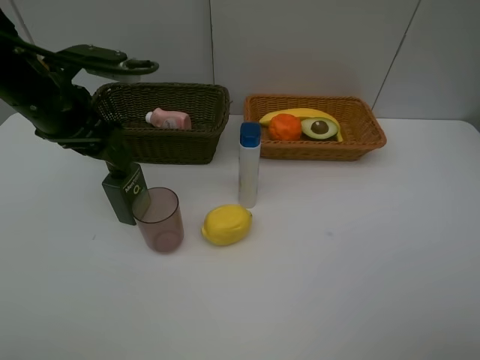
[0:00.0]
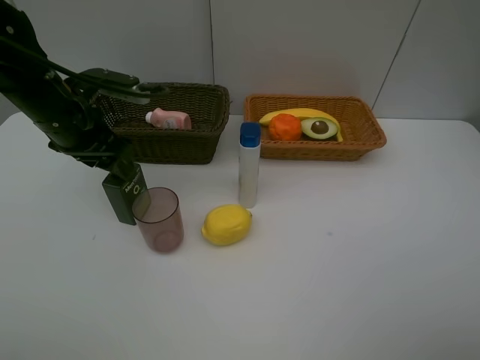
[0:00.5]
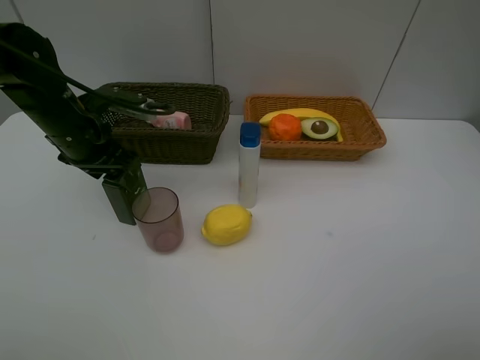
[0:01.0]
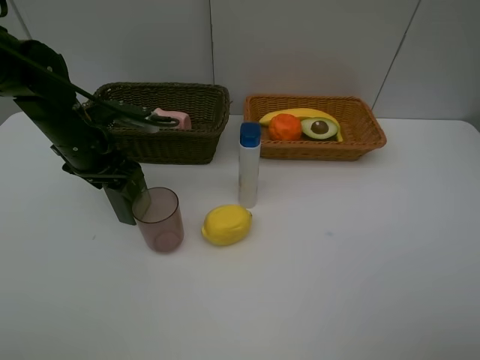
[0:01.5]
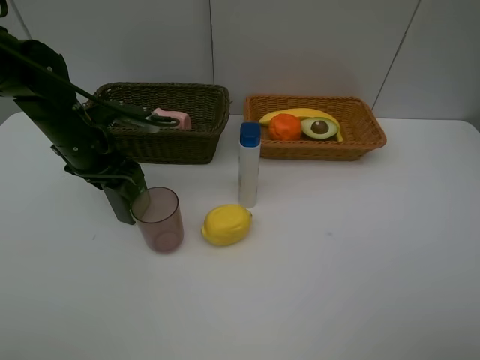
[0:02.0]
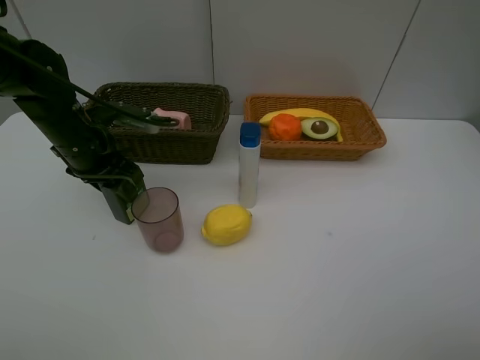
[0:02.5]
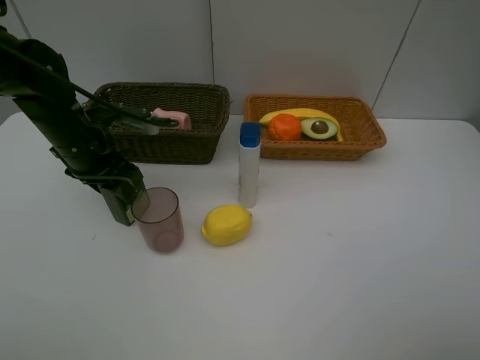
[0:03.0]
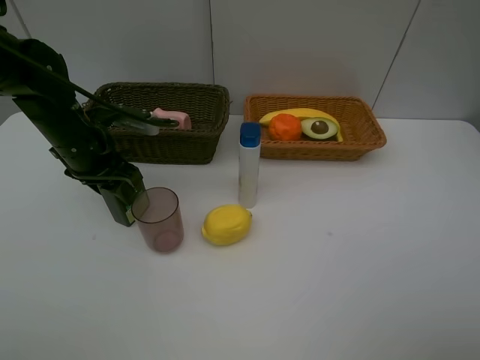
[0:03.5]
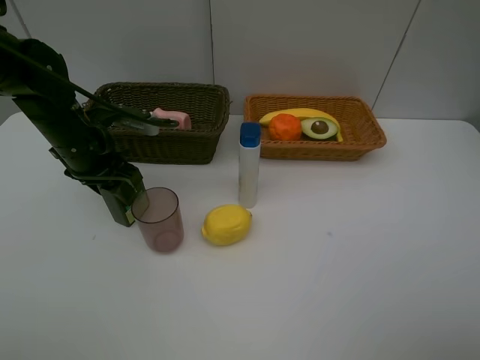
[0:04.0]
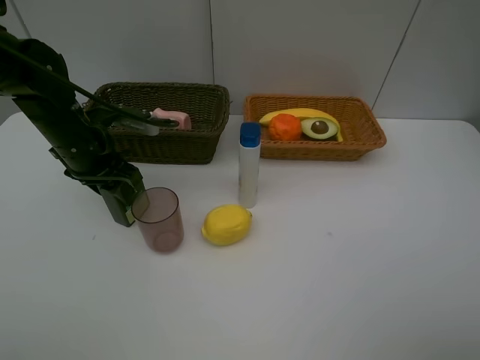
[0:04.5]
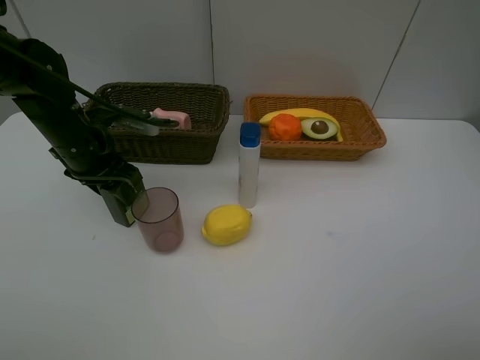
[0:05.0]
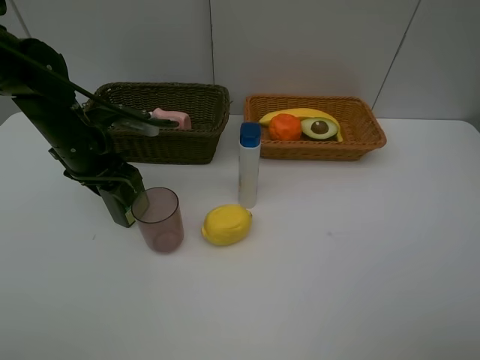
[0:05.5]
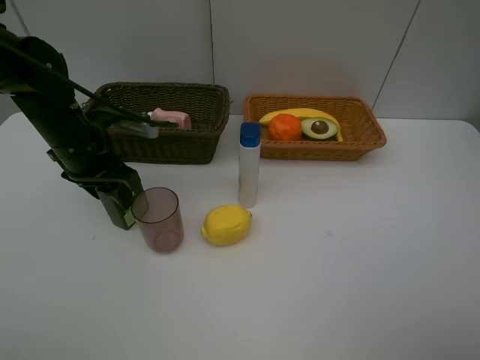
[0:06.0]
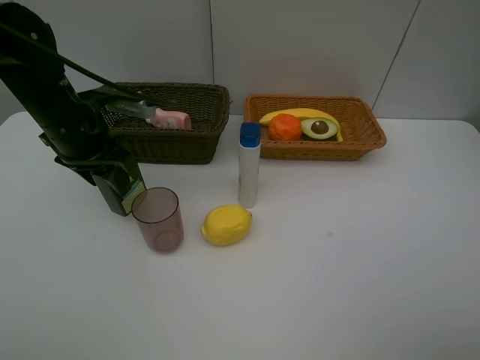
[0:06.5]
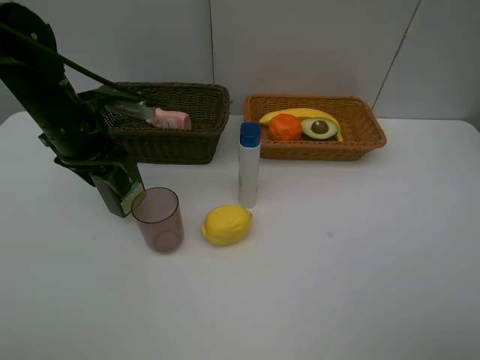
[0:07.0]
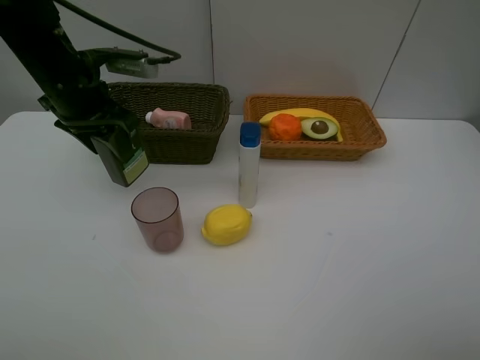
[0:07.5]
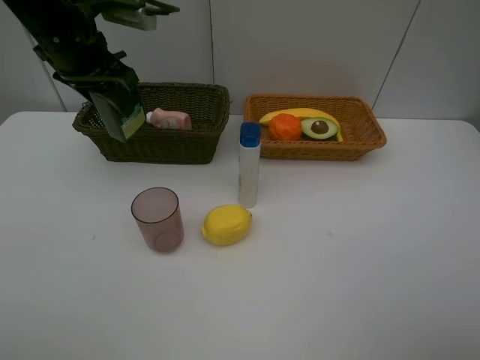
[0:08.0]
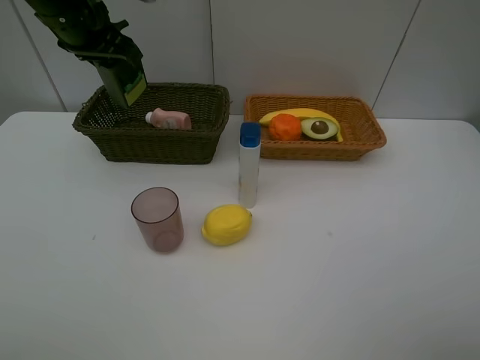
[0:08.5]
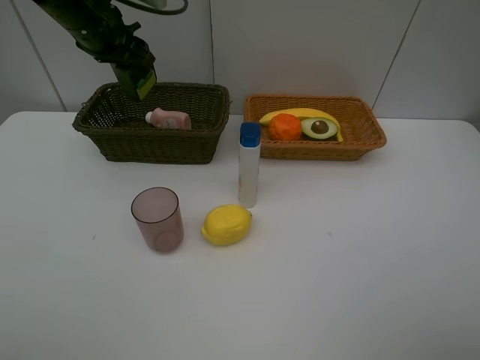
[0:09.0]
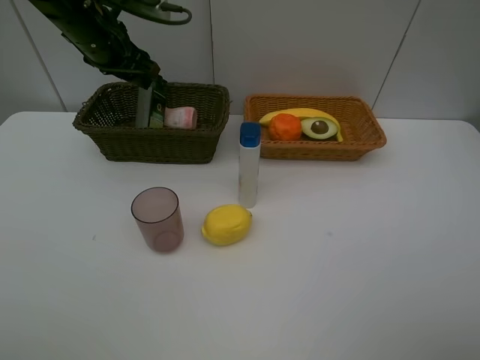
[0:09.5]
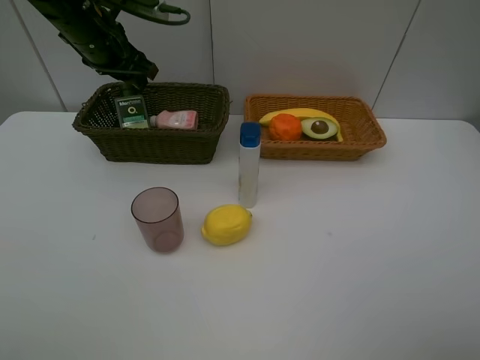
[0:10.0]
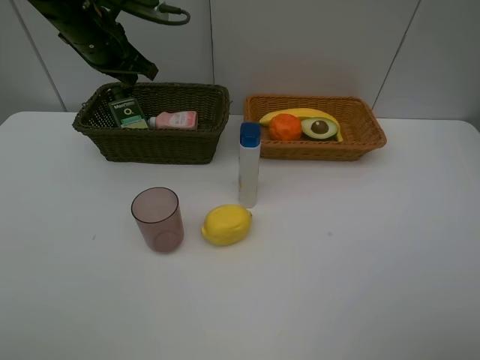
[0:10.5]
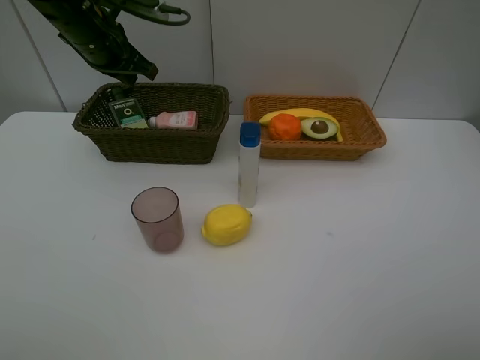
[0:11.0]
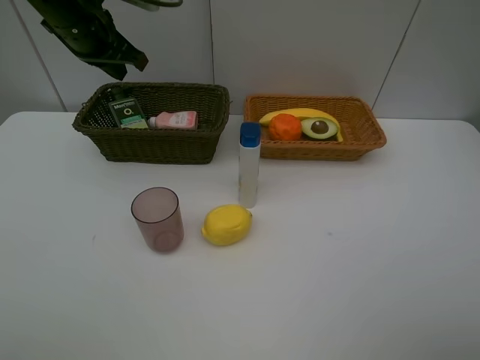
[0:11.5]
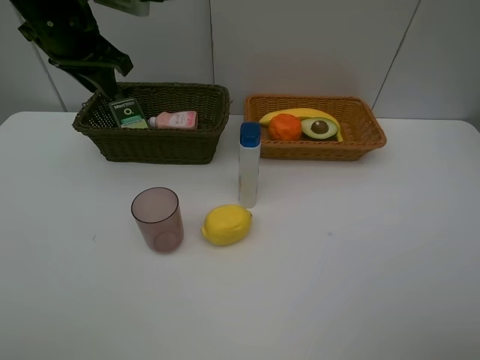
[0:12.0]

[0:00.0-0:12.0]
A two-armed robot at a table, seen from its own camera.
Task of the whole recording: Place multiple objects separately in different baskets.
Step, 0:00.0 to 0:06.5: Pick up the hard facial cleanser with left gripper.
Step, 0:07.0 to 0:09.5: Place the hard facial cleanser in the dark basket with left gripper.
0:00.0 to 0:02.0: The left gripper shifts some 10 cm downward.
0:02.0 to 0:04.0: The two grippers keep their place.
0:04.0 to 0:06.0: Neither gripper changes place.
0:06.0 to 0:08.0: The left gripper is displaced upward and forward by some 15 cm.
0:08.0 to 0:10.0: The left gripper goes approximately 5 cm forward.
0:10.0 to 0:12.0: The left gripper moves about 5 cm, and closes, then reopens.

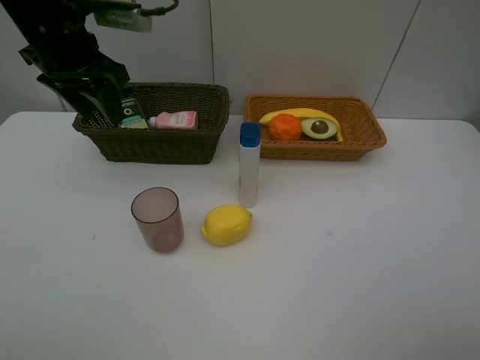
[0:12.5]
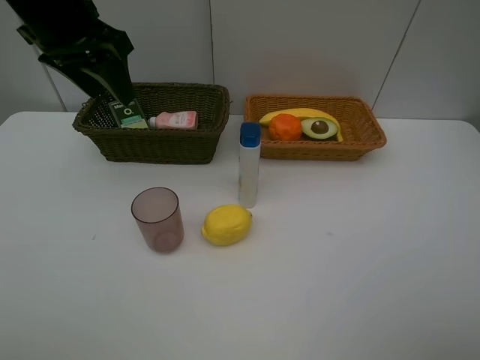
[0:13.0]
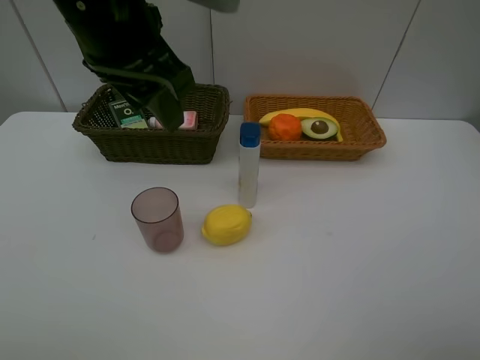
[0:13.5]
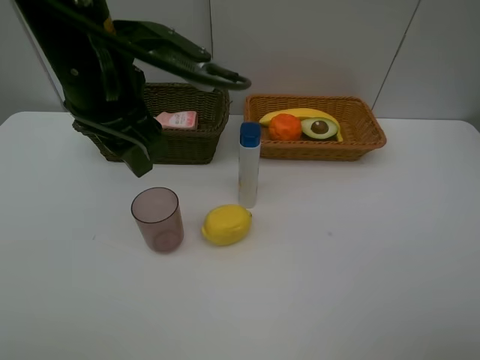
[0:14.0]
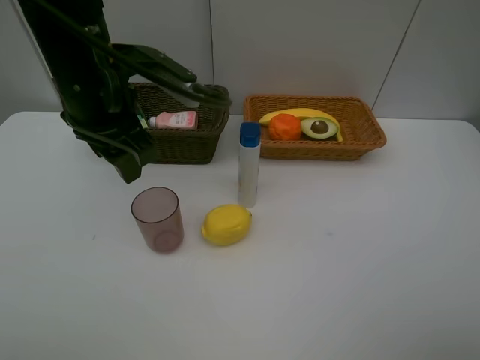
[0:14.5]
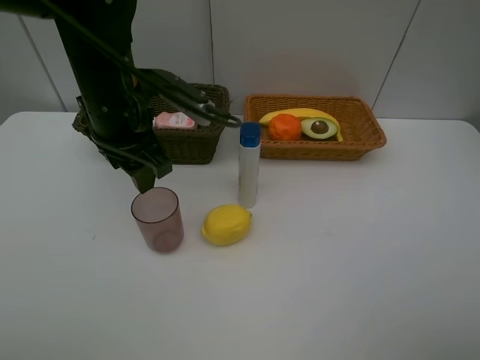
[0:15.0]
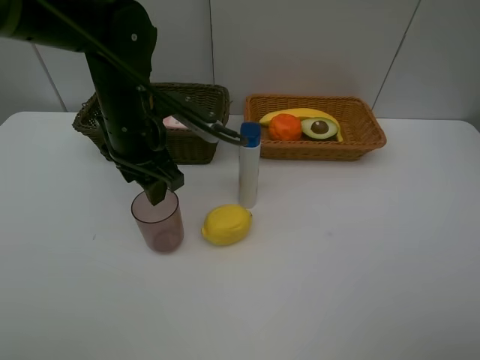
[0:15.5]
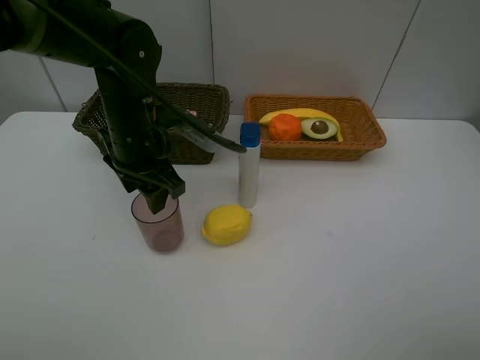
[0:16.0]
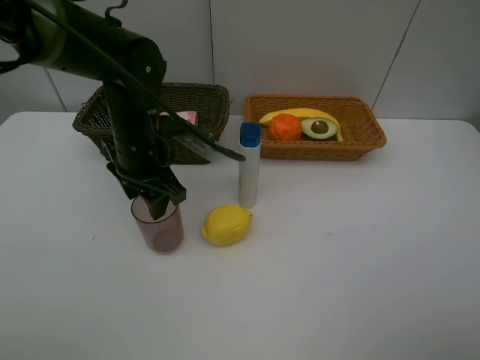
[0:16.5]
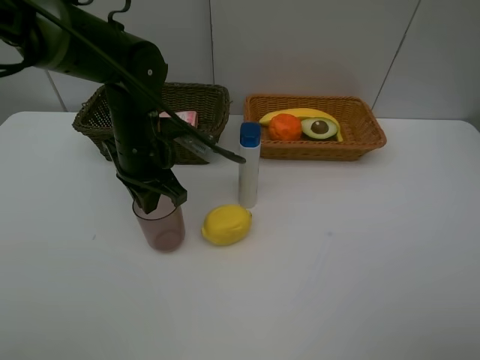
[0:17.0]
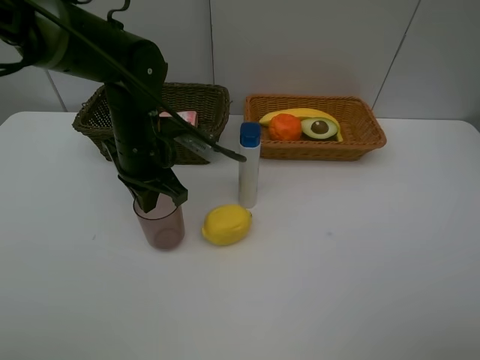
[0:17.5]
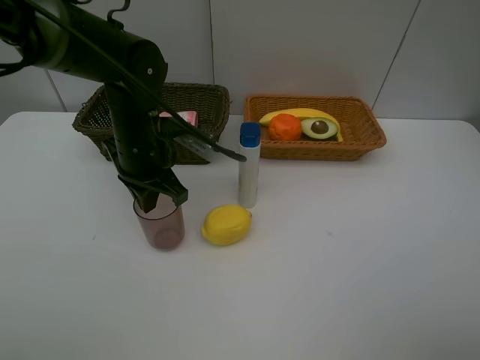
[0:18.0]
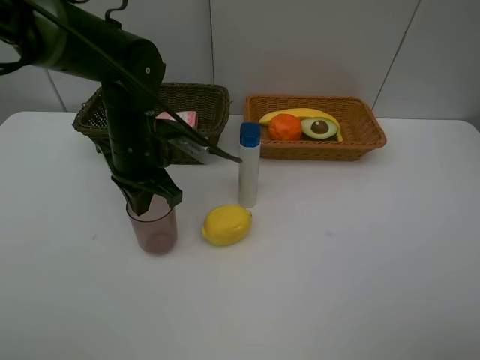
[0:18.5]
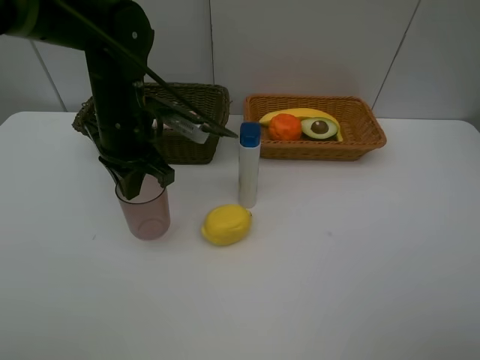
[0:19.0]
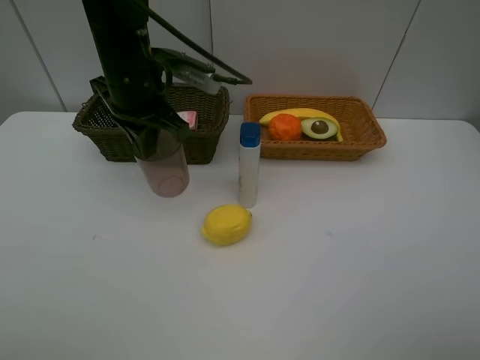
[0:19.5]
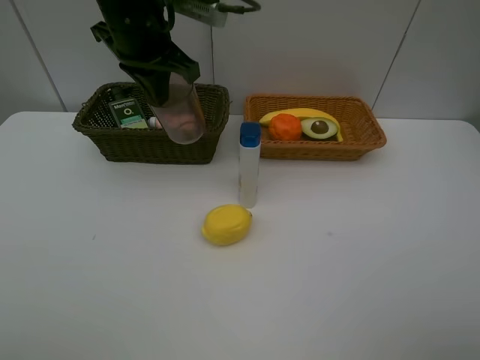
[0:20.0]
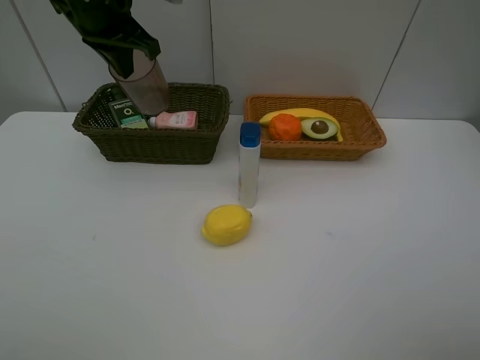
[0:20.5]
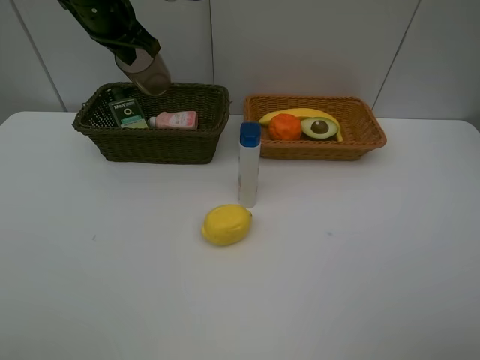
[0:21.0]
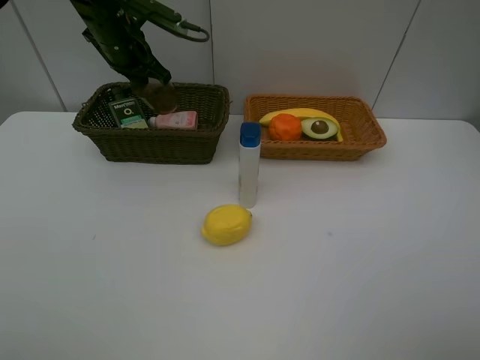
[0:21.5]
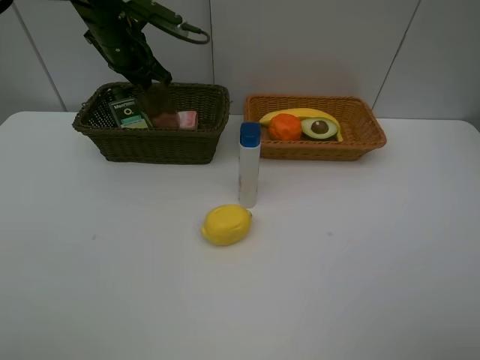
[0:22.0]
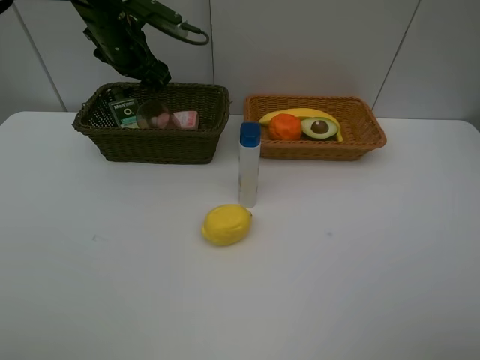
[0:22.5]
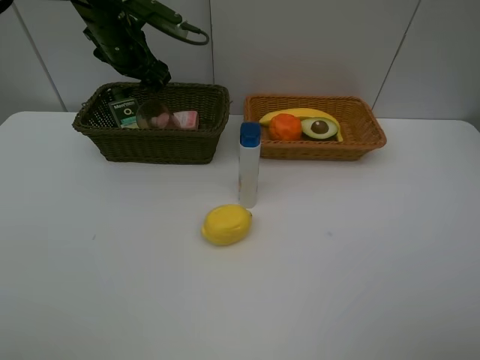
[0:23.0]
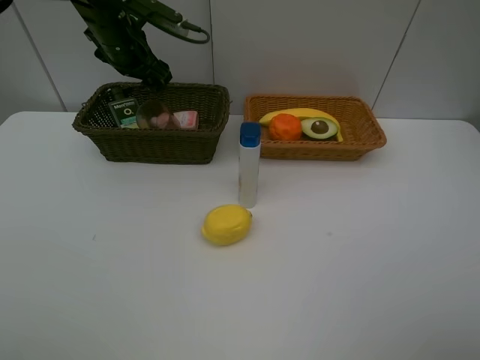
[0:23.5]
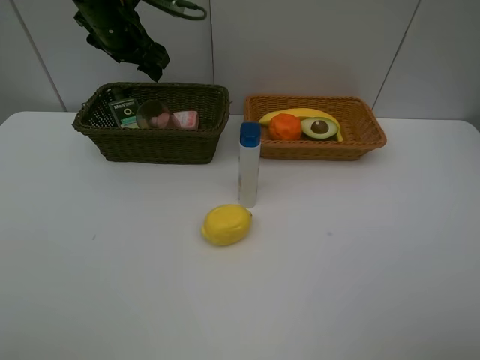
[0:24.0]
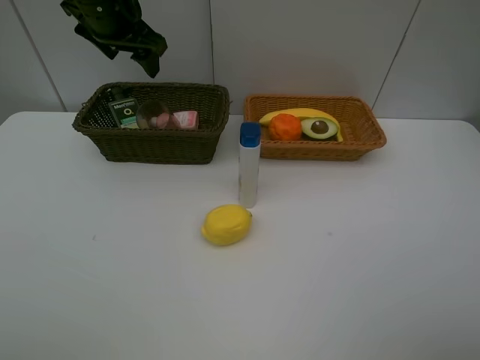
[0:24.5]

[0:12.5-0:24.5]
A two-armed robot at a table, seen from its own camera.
Task of the whole recording: Place multiple objects separately in different baskets.
Step, 0:12.5 to 0:18.5: Pick up the red cup with left gripper.
Step, 0:19.0 to 0:22.5: Place the red cup in the dark basket with left gripper.
0:12.5 to 0:14.5: The left gripper goes approximately 10 cm backward and to the right.
0:14.5 to 0:16.5: The left gripper moves downward, about 10 cm.
0:16.5 to 0:18.5: The left gripper closes.
0:18.5 to 0:20.5: The left gripper travels upward and forward by approximately 20 cm.
0:20.5 to 0:22.5: The left gripper goes approximately 10 cm downward and forward, and opens.
0:22.5 to 0:24.5: The left gripper shifts approximately 5 cm upward.

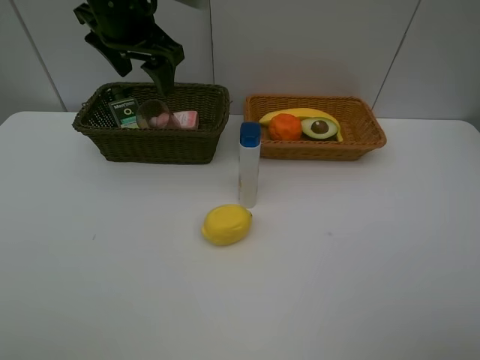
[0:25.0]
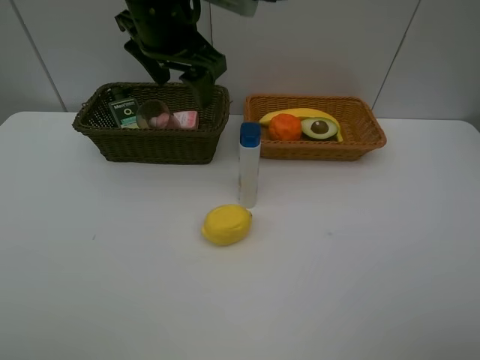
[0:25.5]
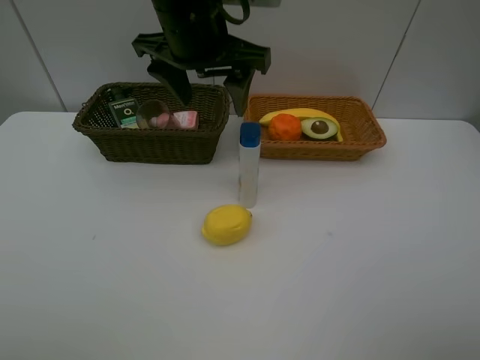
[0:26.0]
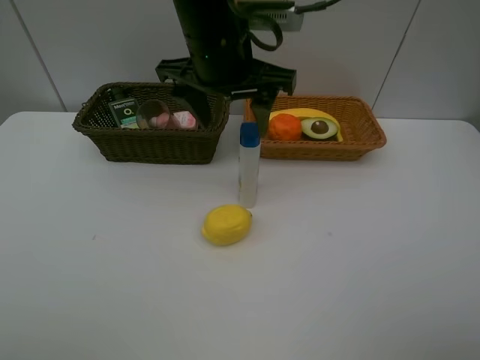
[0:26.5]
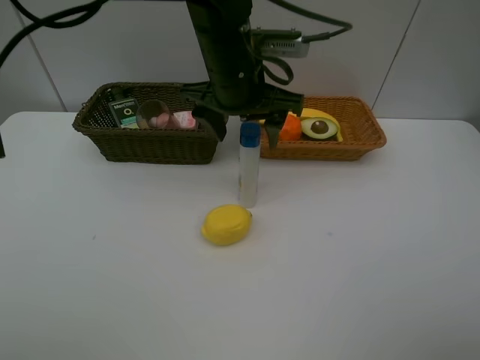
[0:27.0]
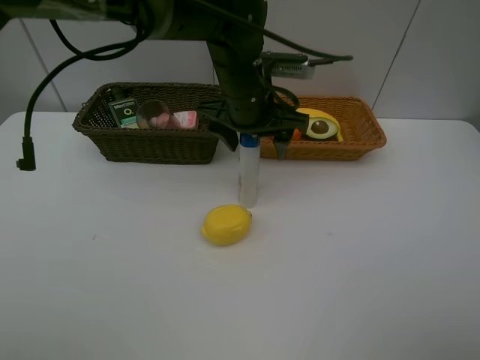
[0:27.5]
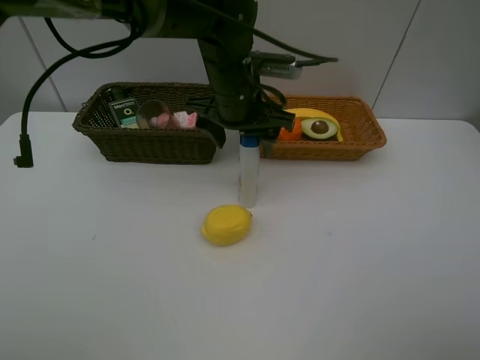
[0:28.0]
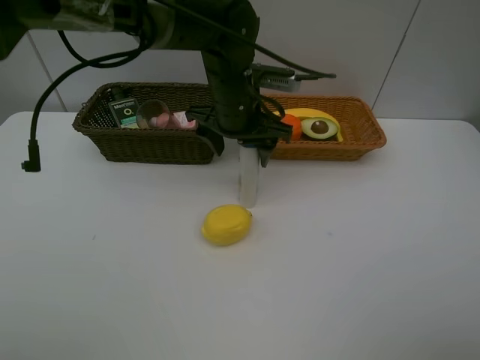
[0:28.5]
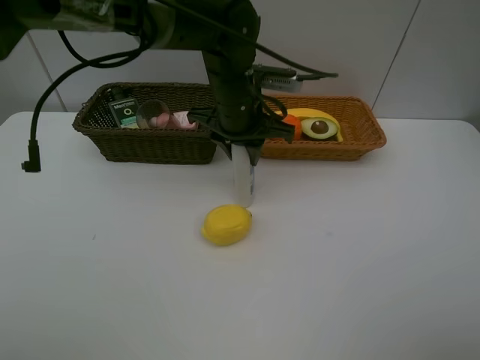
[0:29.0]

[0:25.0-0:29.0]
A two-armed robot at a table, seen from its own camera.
Task of the whole recording: Place multiple objects separately in different baskets.
0:25.0 to 0:27.0: The left gripper heads to the right and downward, covering approximately 15 cm.
0:27.0 to 0:29.0: The left gripper travels downward by about 5 cm, and closes.
